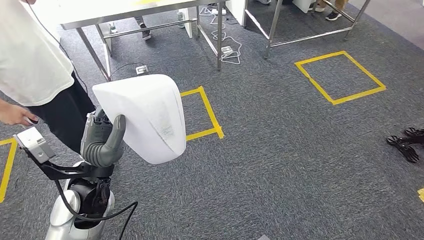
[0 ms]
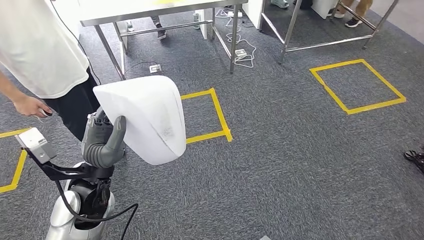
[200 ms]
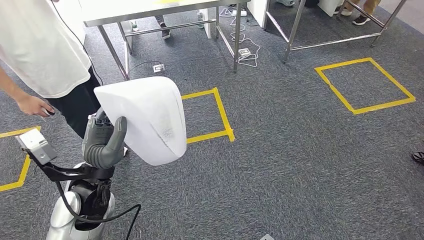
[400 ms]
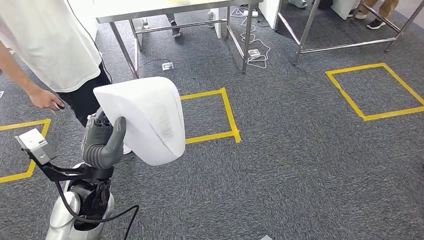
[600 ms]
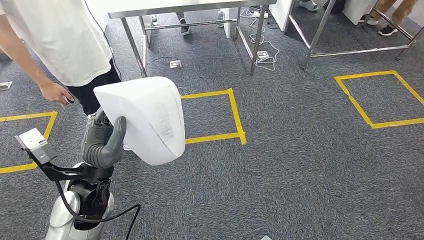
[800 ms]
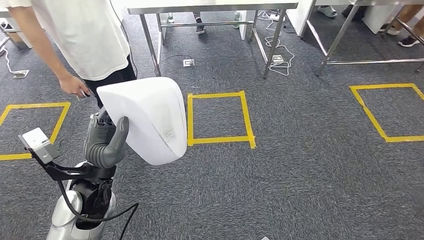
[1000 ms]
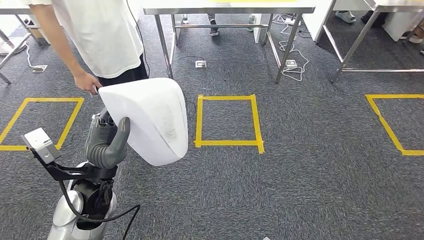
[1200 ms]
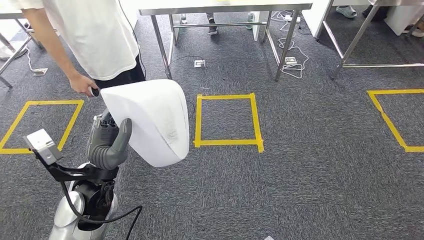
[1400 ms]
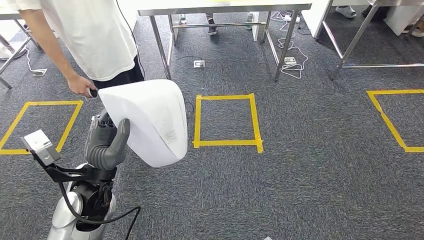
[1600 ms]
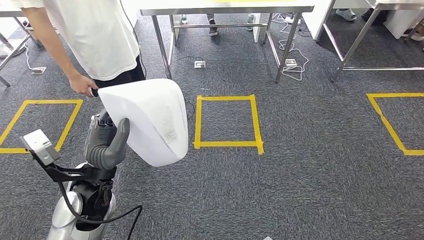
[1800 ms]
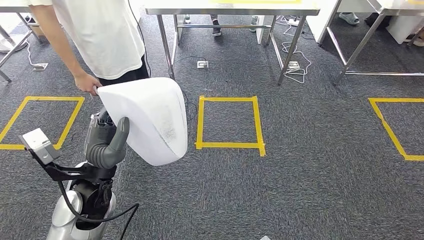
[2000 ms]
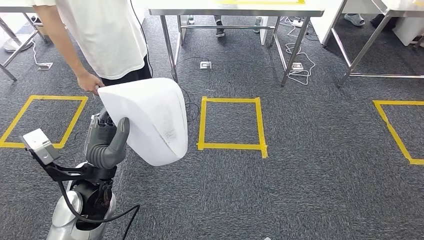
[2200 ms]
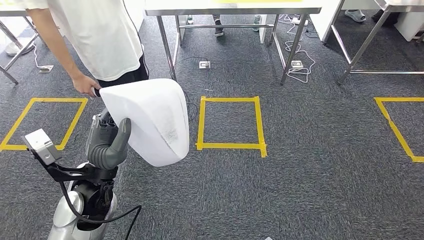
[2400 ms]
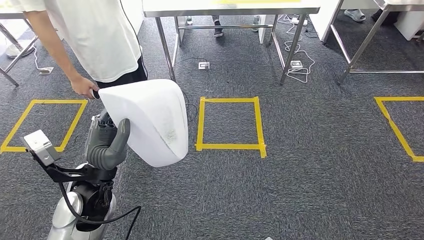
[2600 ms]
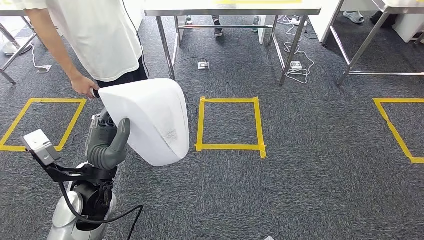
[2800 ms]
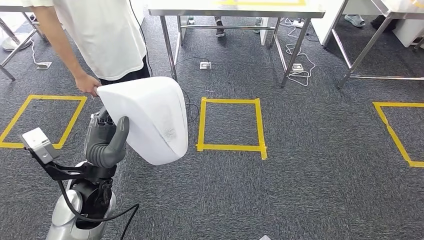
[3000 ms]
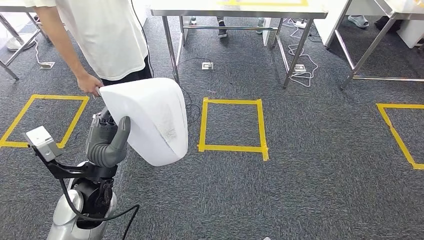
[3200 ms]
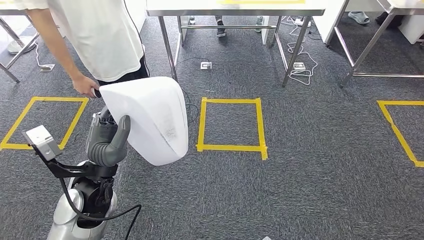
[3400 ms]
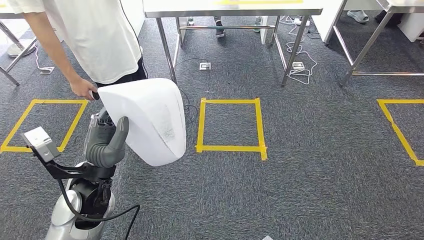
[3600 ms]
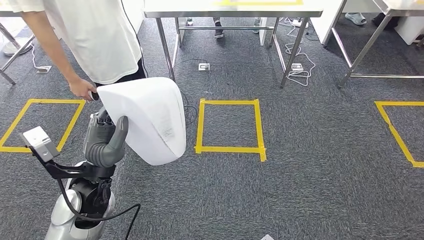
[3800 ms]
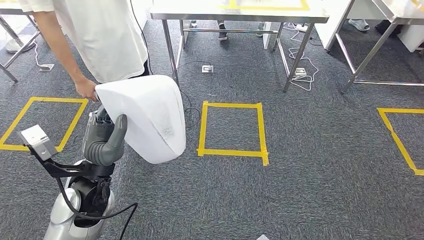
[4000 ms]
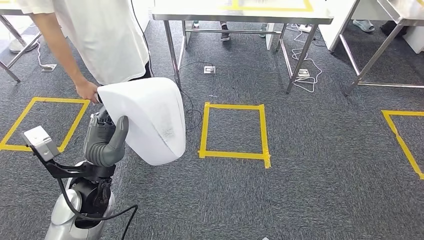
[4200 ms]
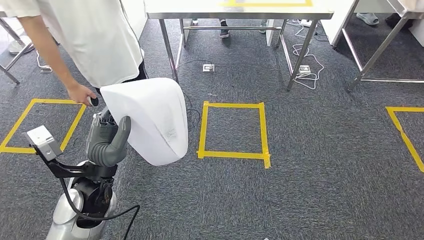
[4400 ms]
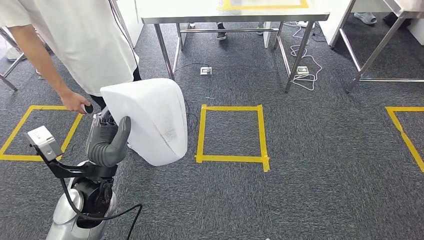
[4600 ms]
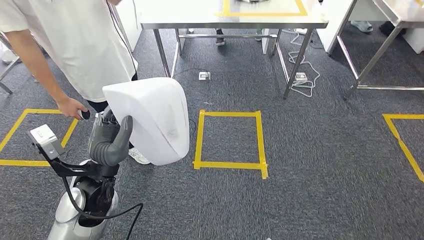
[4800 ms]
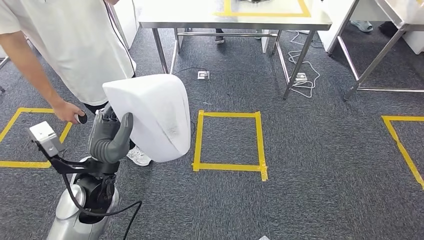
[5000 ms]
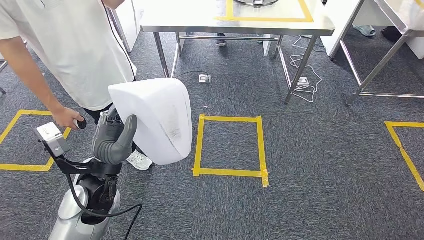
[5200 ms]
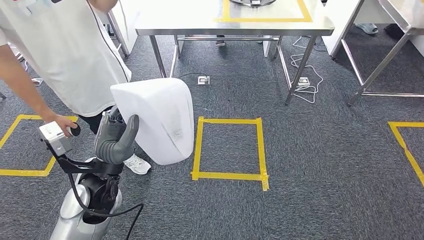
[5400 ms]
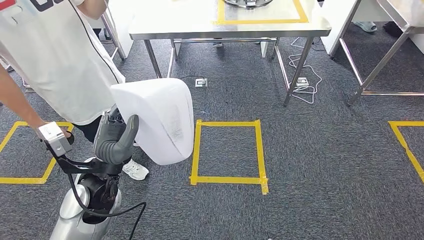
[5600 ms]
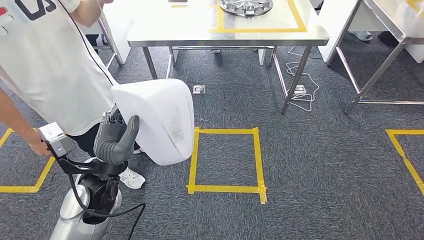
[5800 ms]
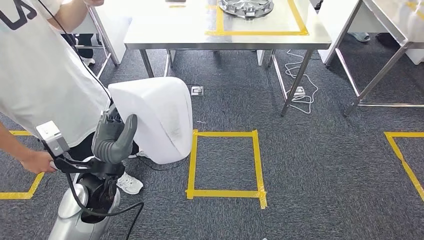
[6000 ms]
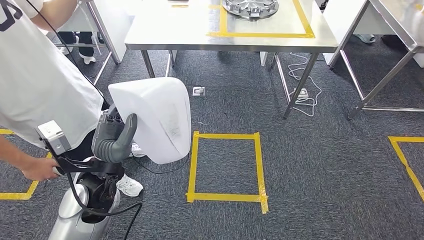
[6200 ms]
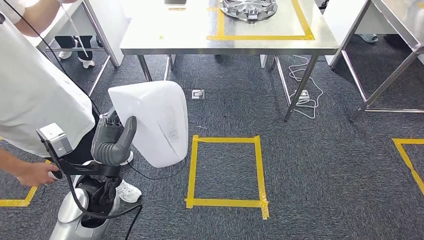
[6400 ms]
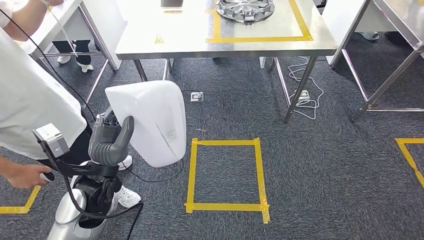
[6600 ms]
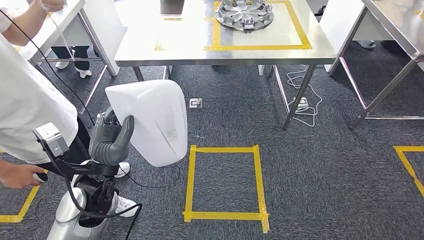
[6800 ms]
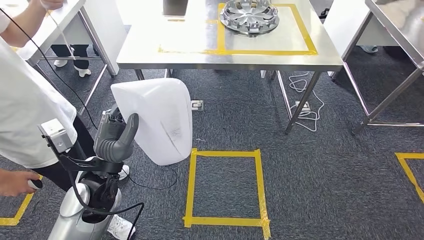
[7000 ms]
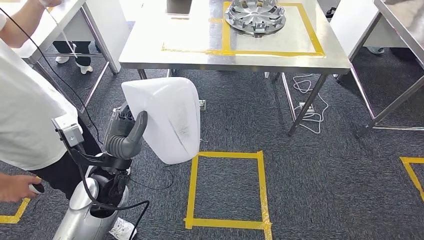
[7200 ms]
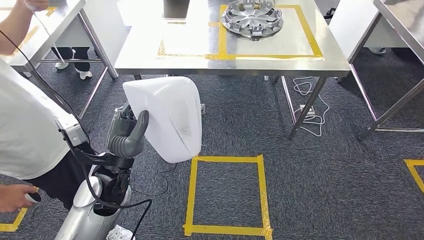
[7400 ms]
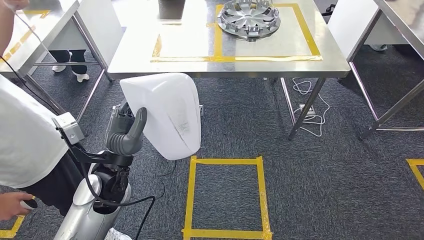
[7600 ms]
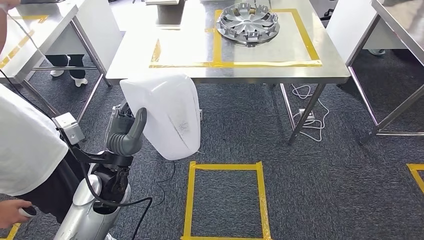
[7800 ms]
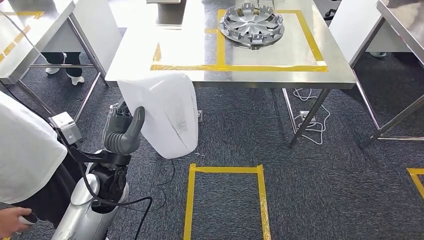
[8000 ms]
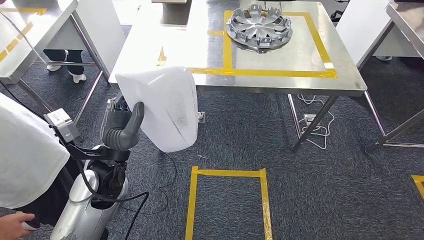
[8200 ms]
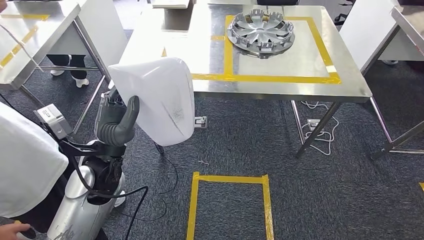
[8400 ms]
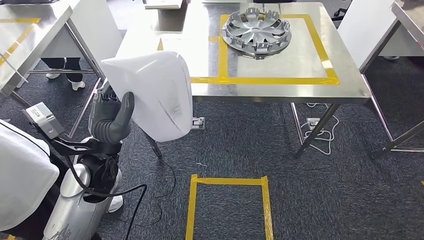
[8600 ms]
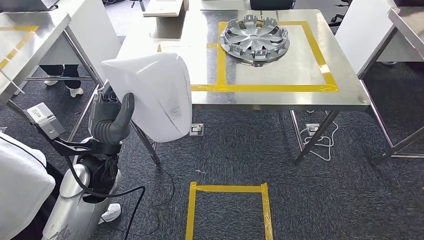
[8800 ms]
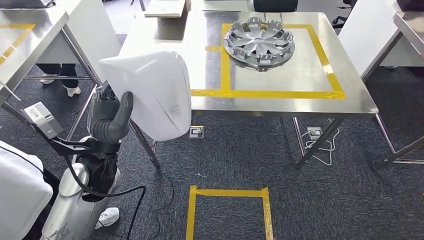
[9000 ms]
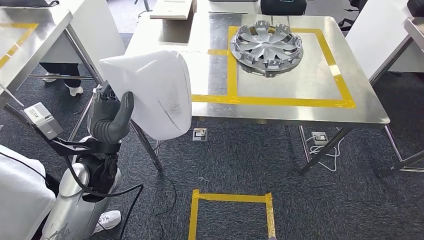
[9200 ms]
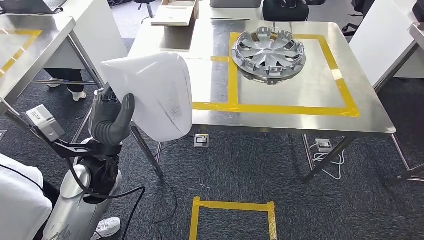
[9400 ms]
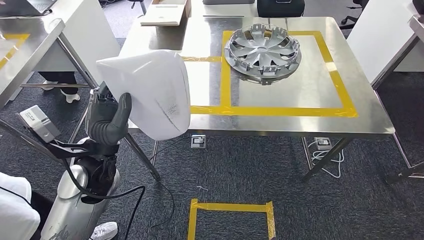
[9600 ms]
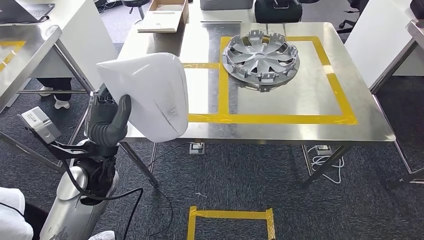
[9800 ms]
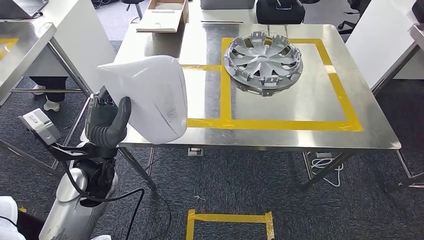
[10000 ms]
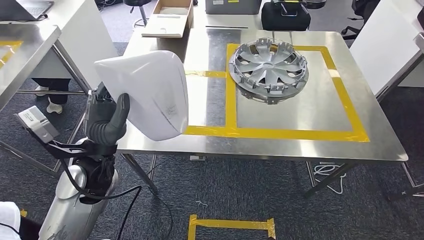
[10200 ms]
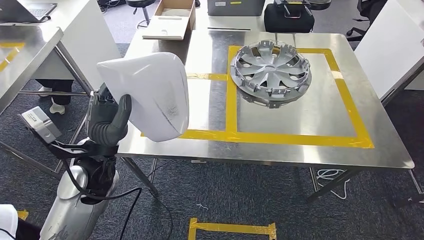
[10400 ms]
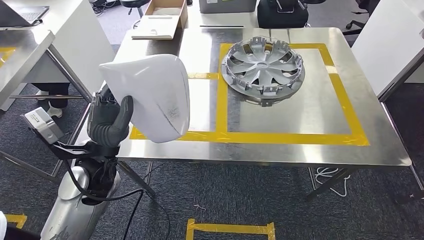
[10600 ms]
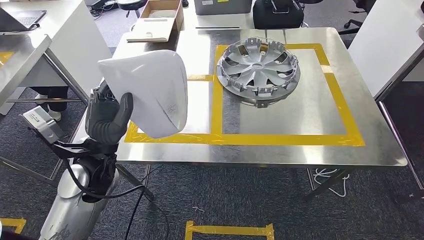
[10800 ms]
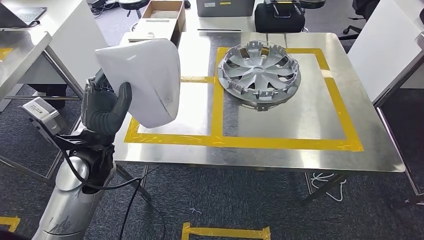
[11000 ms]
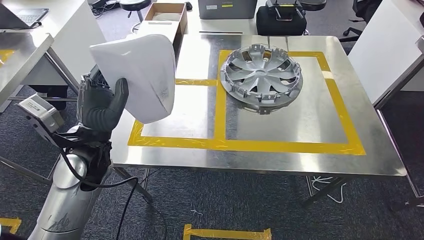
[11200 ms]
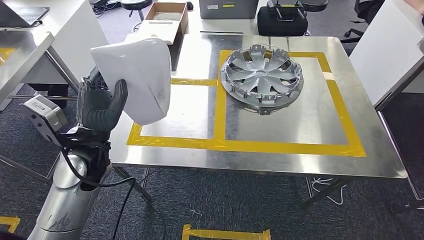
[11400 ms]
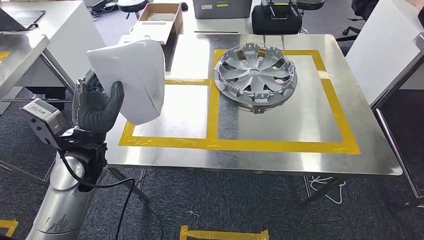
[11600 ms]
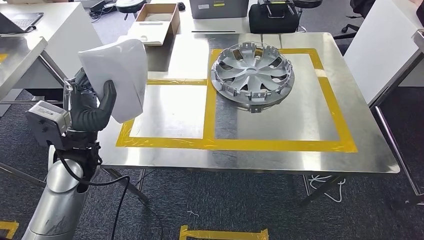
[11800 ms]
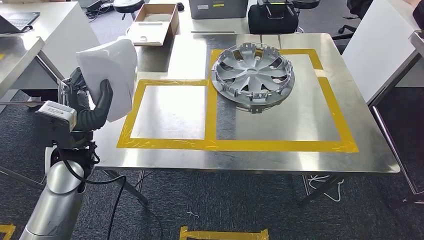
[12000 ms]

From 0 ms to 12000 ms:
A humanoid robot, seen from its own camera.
Step, from 0 ms to 11600 ms: Move the small component to the workbench.

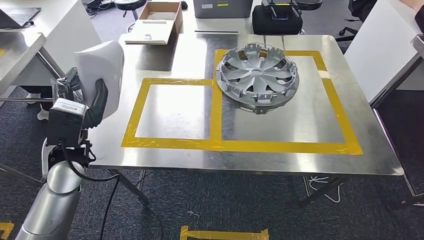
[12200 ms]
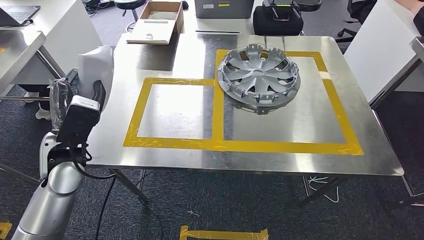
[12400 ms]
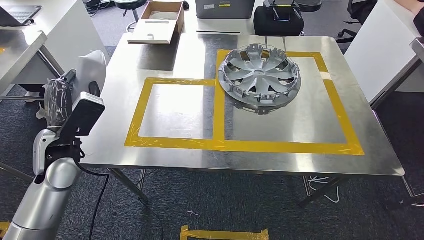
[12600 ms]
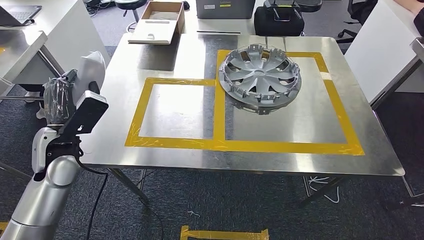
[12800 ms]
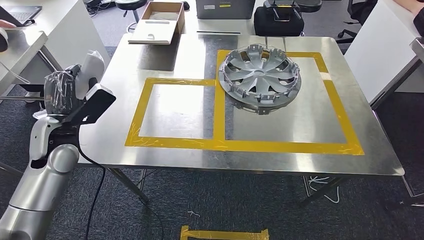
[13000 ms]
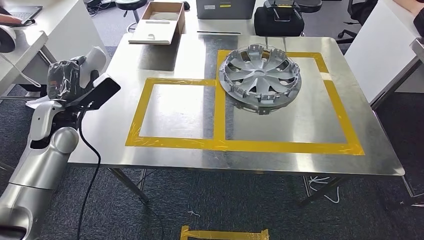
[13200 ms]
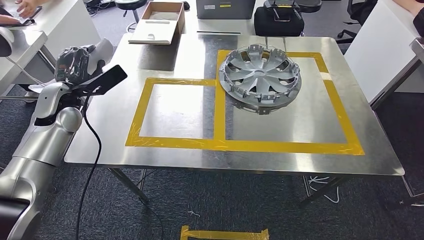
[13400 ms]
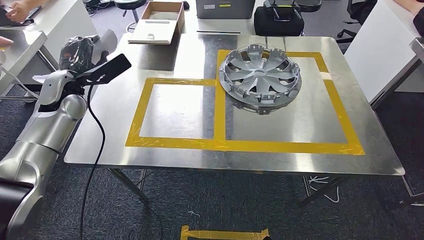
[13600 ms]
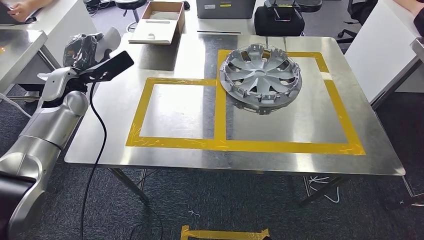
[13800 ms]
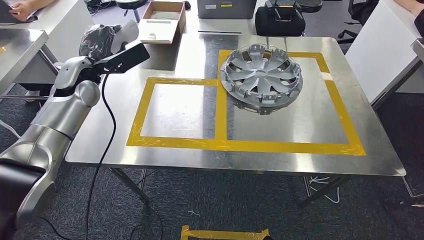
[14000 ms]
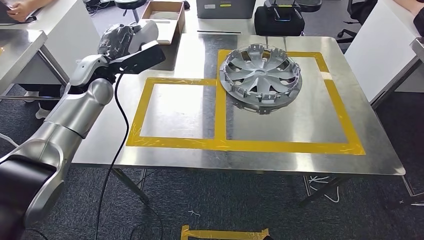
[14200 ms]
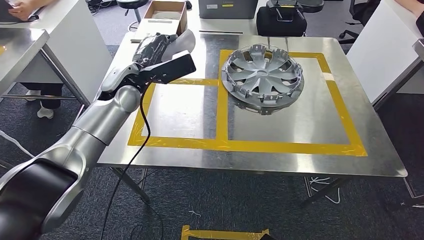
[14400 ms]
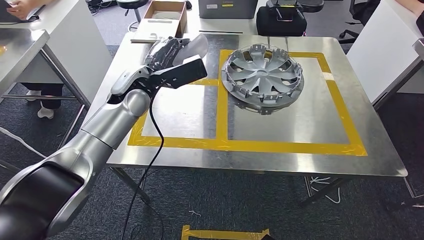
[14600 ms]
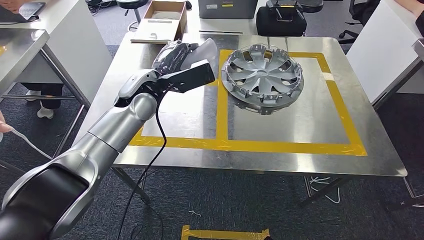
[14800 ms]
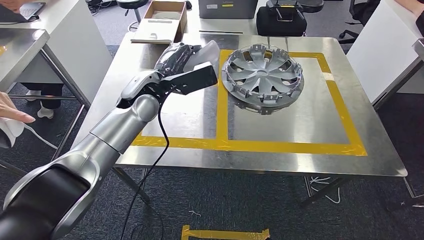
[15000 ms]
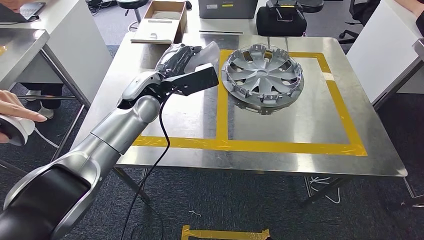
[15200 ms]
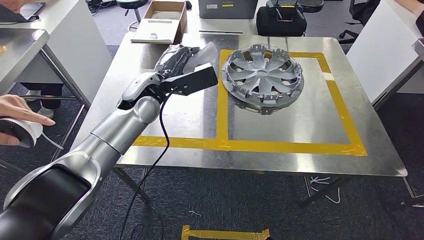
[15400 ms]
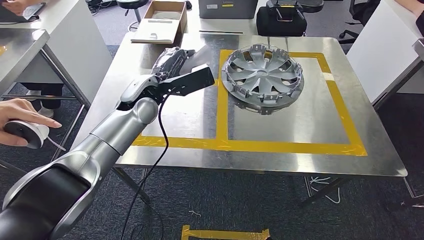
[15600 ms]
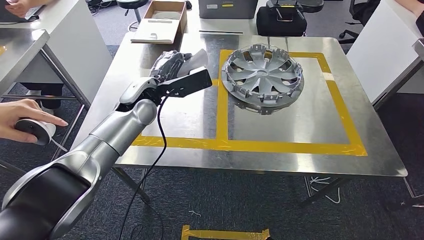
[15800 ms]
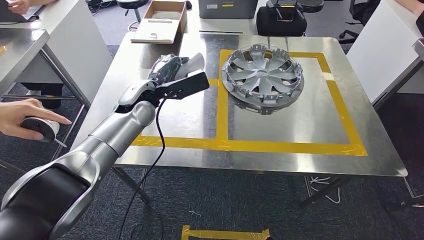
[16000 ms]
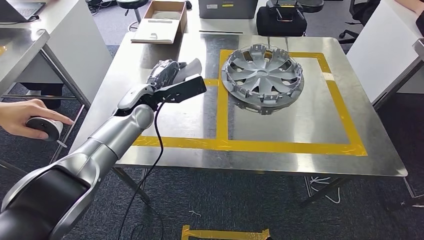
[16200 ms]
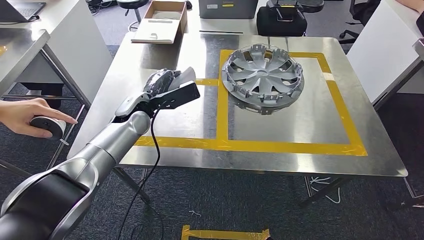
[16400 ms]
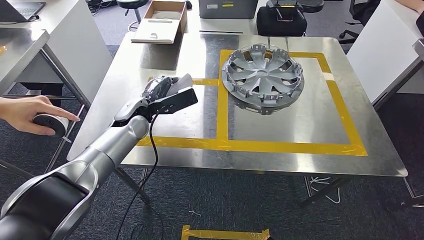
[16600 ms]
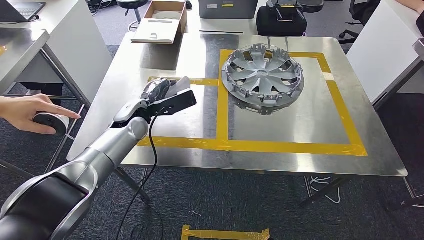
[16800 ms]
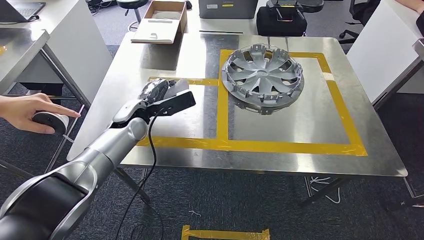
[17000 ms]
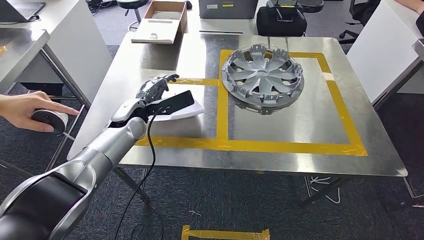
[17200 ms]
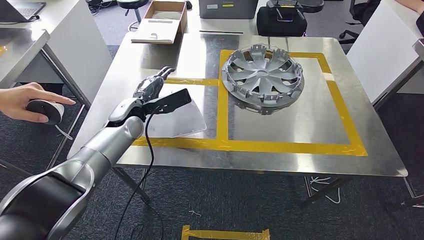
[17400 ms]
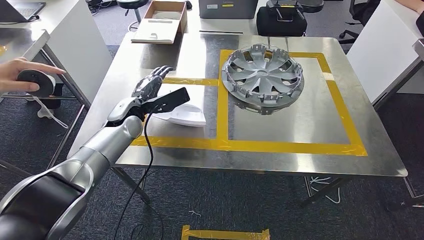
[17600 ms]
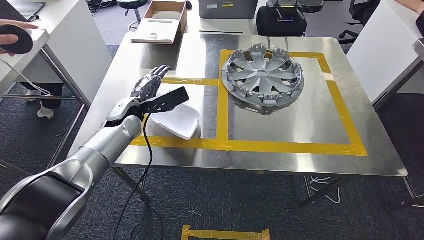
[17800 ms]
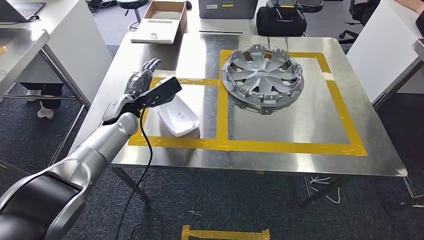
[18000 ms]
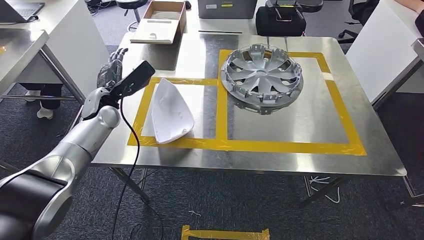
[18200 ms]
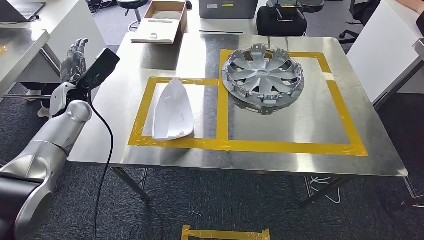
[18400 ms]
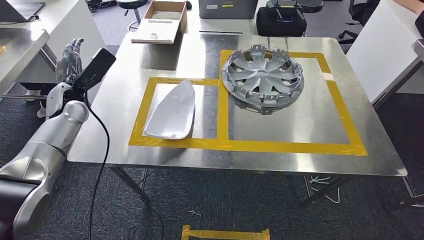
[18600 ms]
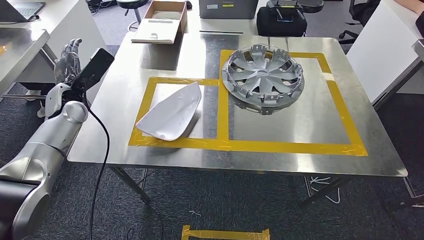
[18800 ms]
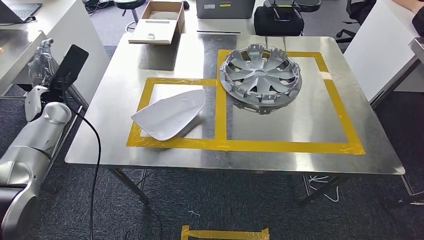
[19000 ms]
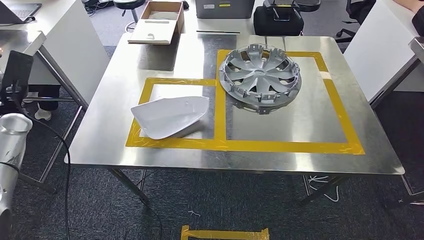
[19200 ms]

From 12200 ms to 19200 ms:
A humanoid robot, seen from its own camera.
Step, from 12200 ms to 19200 ms: Insert the small component into the corresponding slot on the workbench.
From 15000 ms to 16400 ms: The left hand travels downward by roughly 5 cm.
From 16400 ms to 17800 ms: The hands stay close to where they were, moving slightly.
